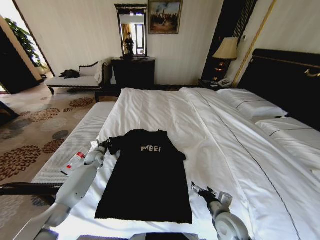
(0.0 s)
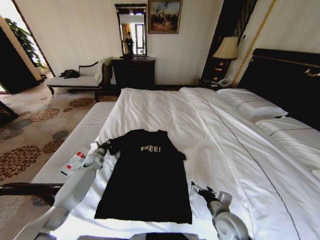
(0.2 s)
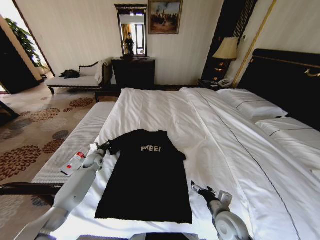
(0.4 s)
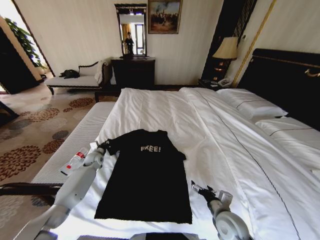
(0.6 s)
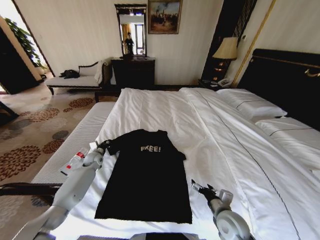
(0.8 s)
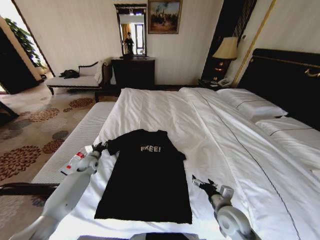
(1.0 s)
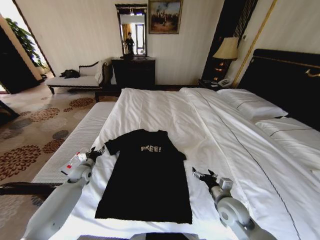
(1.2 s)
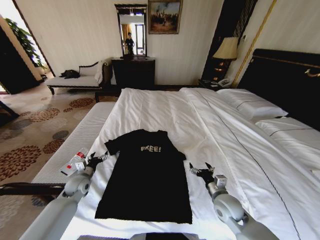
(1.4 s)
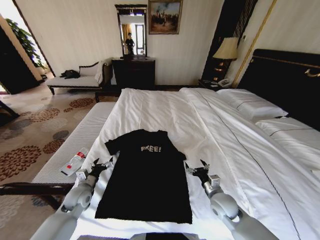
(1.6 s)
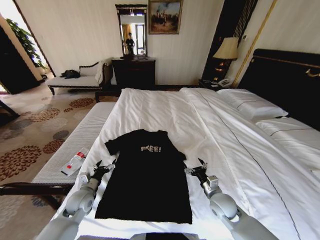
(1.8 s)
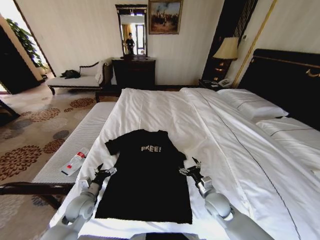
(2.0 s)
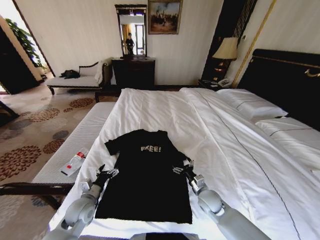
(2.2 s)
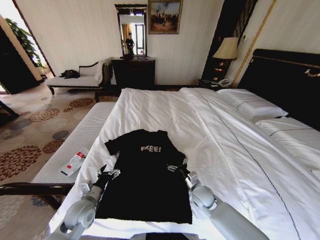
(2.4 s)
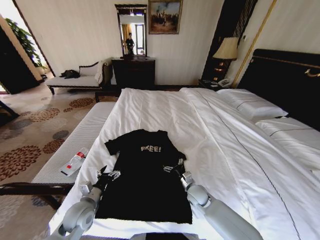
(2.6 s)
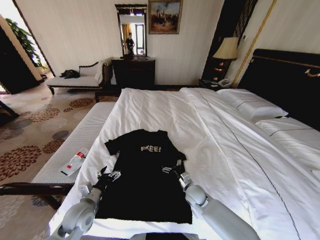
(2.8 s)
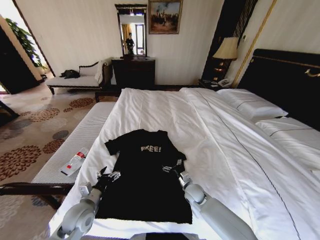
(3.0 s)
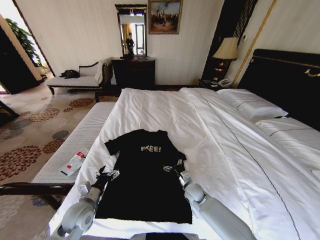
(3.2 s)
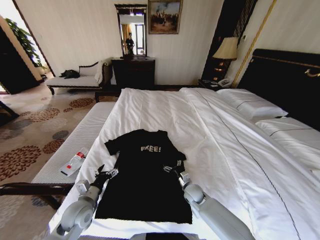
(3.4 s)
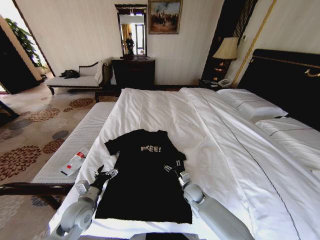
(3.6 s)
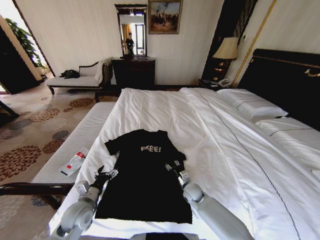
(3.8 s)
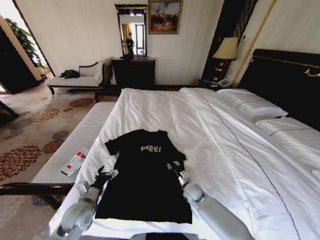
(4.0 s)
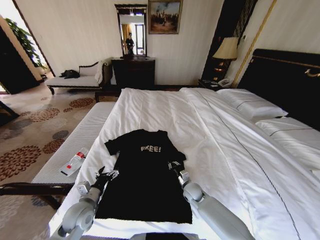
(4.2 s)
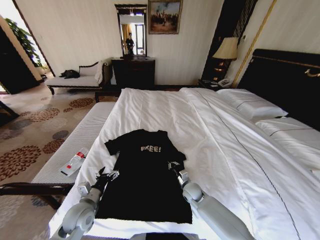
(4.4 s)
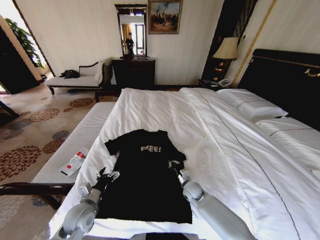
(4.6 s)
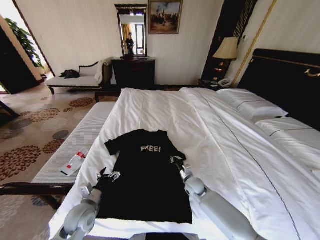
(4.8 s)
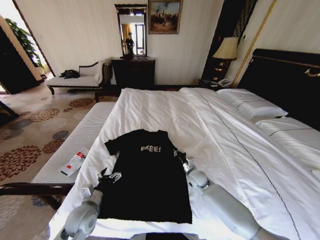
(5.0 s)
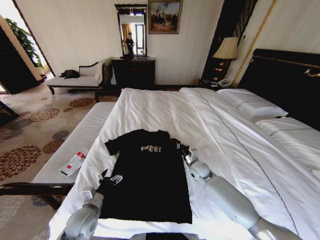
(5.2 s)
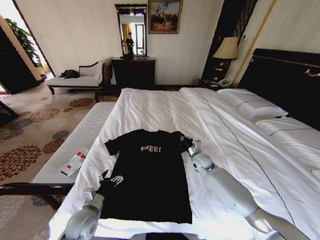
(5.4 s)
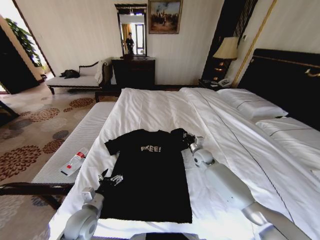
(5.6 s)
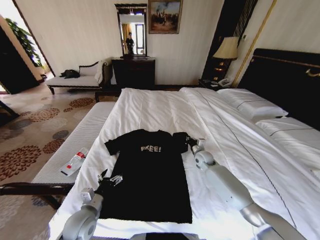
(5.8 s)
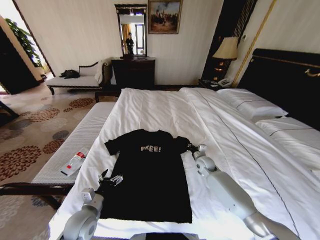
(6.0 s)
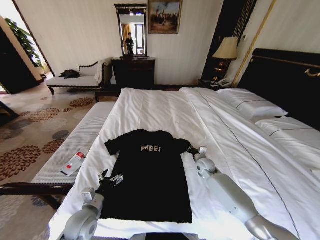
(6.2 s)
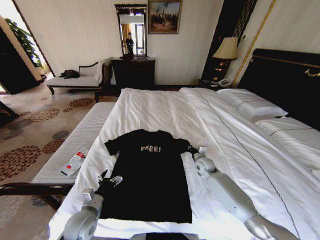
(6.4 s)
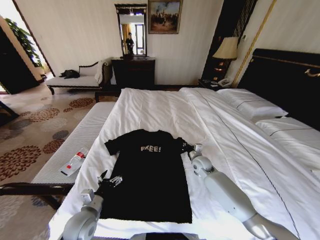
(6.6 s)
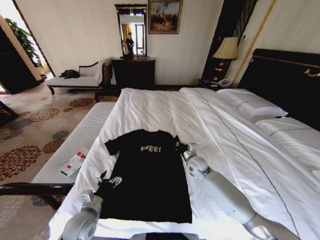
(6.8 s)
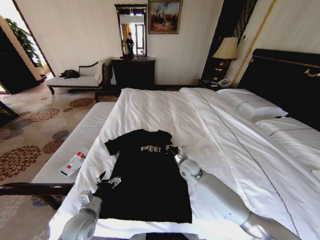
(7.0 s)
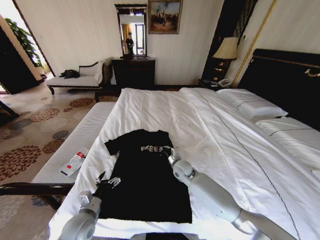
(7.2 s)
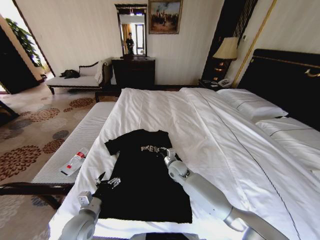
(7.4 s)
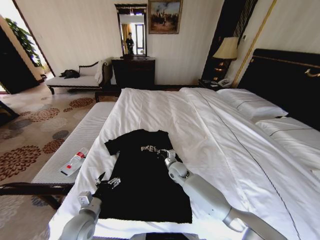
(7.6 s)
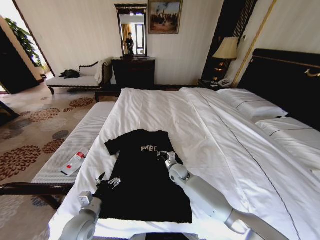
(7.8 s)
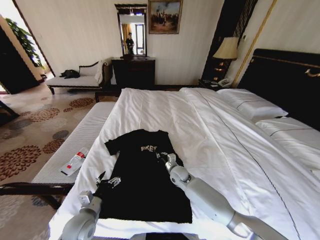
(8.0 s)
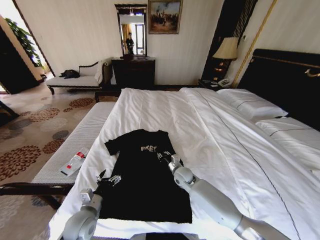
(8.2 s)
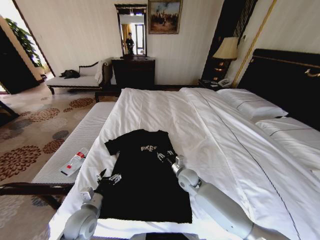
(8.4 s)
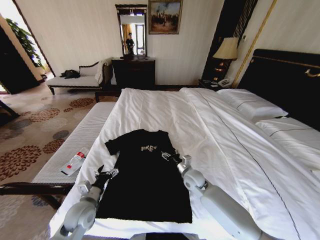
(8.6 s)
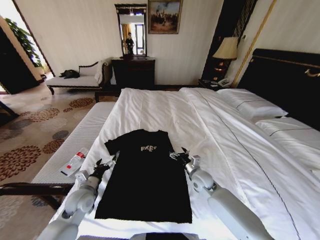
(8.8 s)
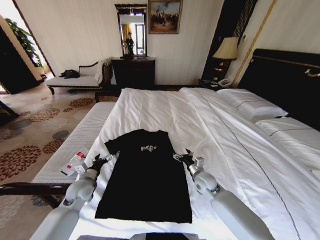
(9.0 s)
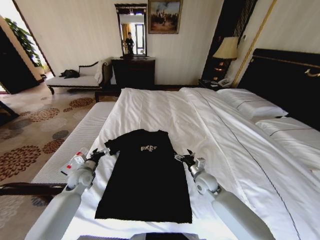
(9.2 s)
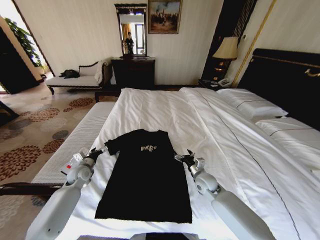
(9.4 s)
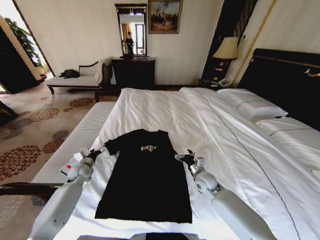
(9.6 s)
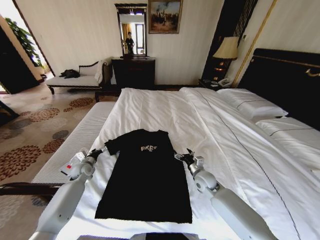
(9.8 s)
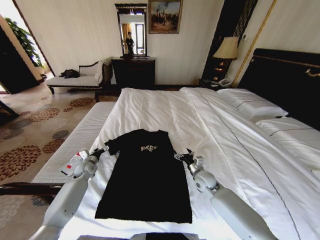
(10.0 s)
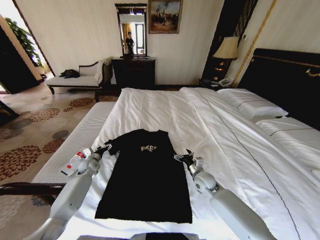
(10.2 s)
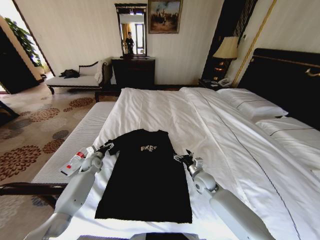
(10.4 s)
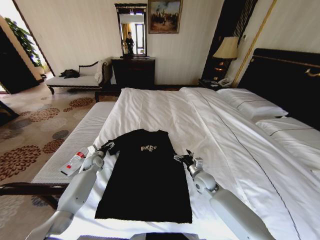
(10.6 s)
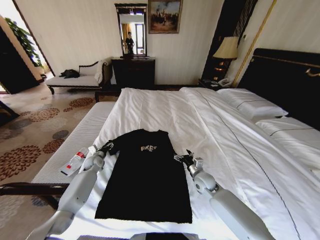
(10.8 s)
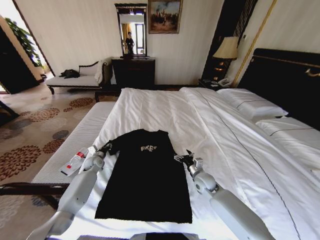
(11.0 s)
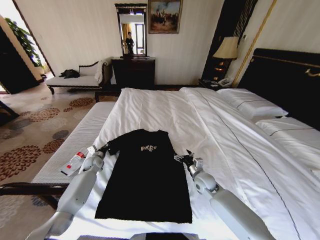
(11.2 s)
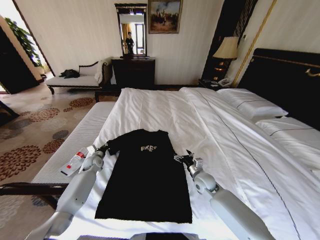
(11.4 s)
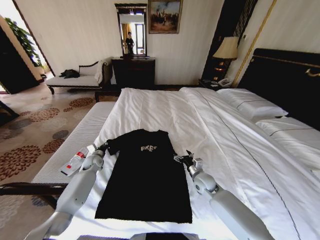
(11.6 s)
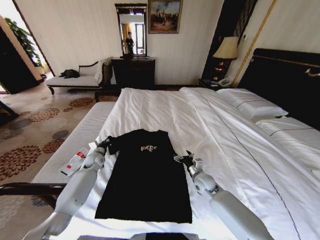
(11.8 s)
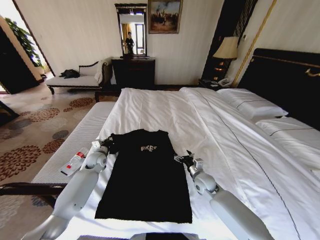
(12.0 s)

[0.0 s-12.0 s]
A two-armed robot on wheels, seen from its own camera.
Task of the whole recording: Fold the clothes on the bed.
0.0 to 1.6 s: The right gripper travels forward by roughly 5 cm. Meanwhile the left gripper goes some 20 cm backward, and opens up.
1.6 to 3.0 s: The right gripper shifts approximately 15 cm downward, to the left and forward, while the left gripper goes approximately 10 cm backward and to the right.
3.0 to 4.4 s: The right gripper closes up.
4.4 to 6.0 s: The right gripper moves forward, upward and to the right, approximately 15 cm.
6.0 to 7.6 s: The right gripper travels to the left by roughly 15 cm.
7.6 to 9.0 s: The left gripper travels forward and to the left by about 15 cm; the right gripper travels to the right and backward by approximately 15 cm, and opens up.
9.0 to 10.4 s: The left gripper is displaced forward by some 15 cm.
10.4 to 12.0 s: The left gripper goes roughly 10 cm to the right and upward, and closes its fingers.

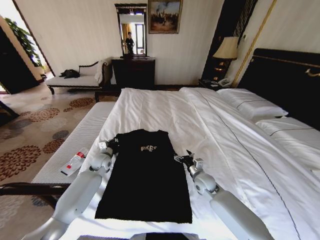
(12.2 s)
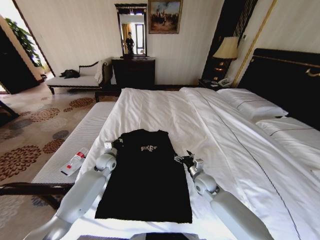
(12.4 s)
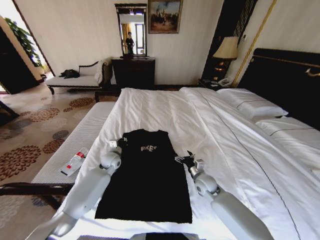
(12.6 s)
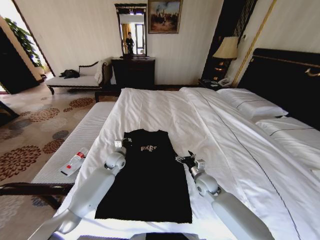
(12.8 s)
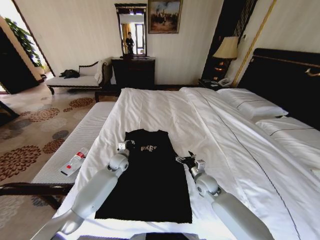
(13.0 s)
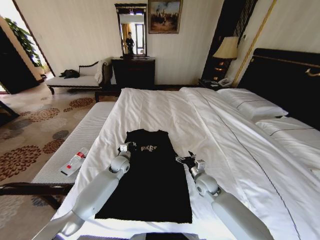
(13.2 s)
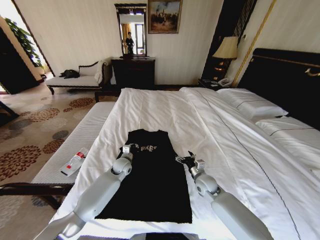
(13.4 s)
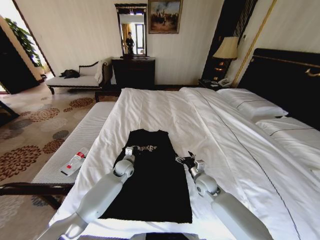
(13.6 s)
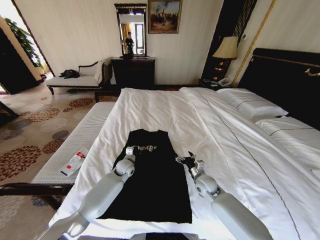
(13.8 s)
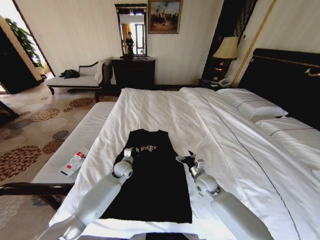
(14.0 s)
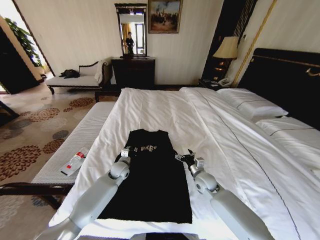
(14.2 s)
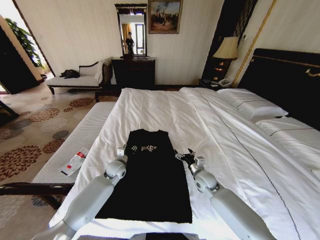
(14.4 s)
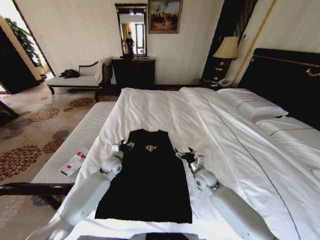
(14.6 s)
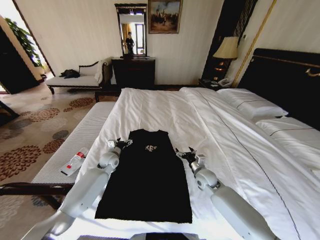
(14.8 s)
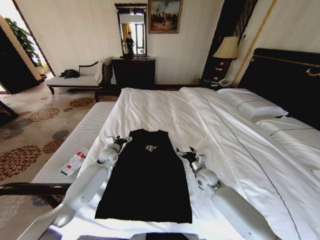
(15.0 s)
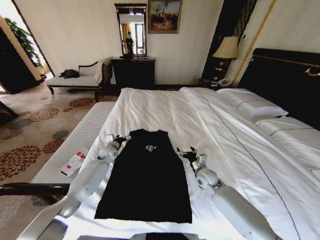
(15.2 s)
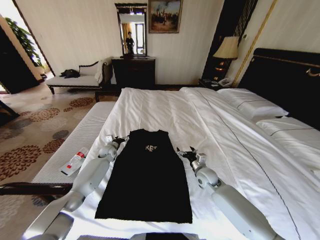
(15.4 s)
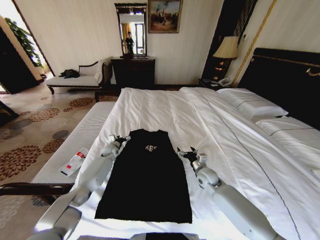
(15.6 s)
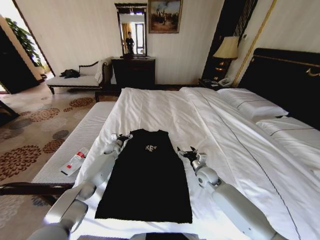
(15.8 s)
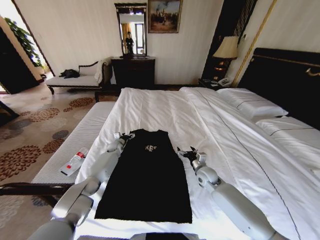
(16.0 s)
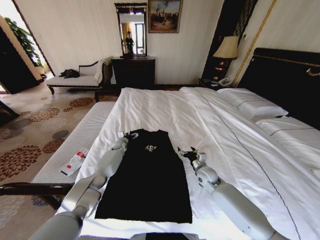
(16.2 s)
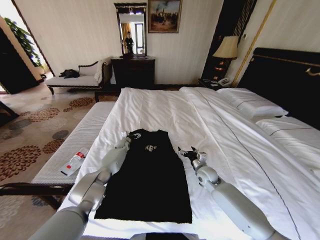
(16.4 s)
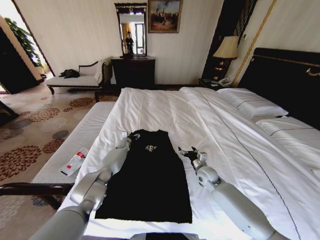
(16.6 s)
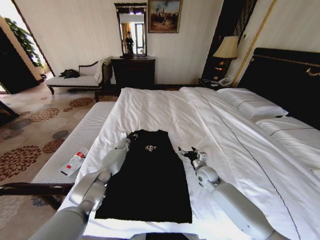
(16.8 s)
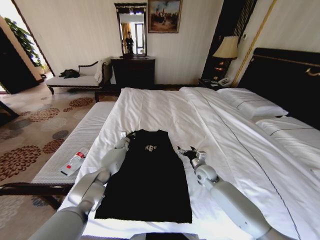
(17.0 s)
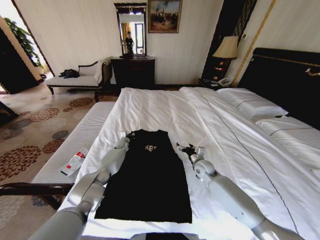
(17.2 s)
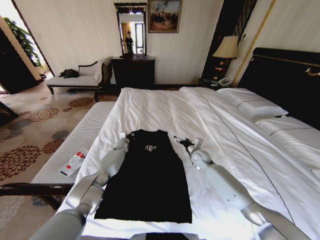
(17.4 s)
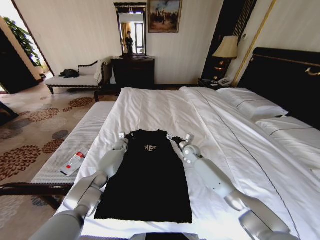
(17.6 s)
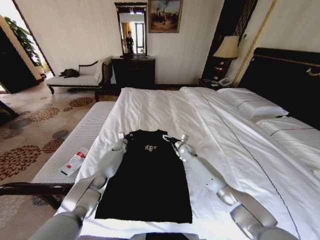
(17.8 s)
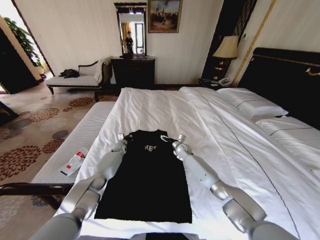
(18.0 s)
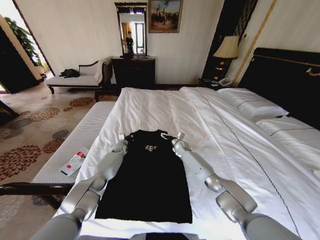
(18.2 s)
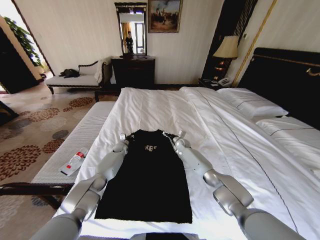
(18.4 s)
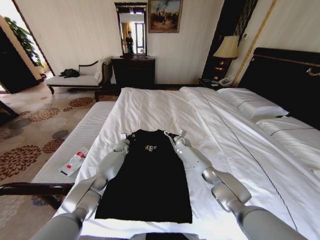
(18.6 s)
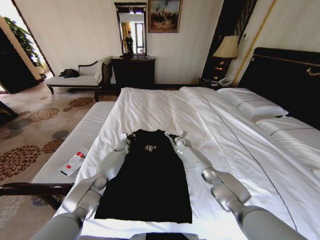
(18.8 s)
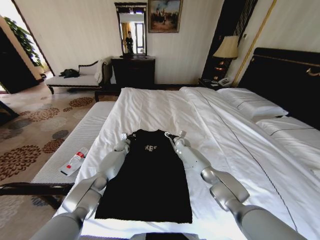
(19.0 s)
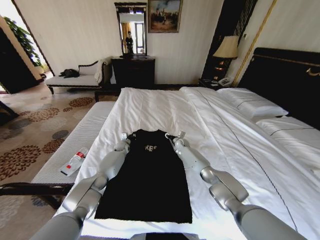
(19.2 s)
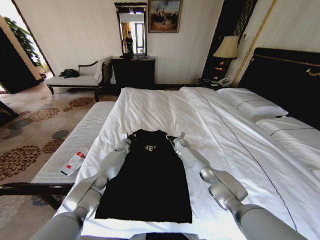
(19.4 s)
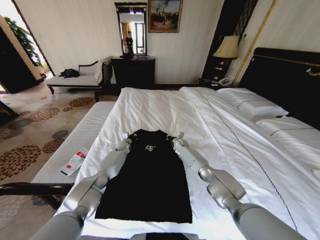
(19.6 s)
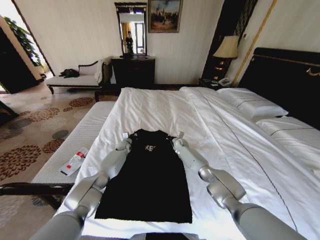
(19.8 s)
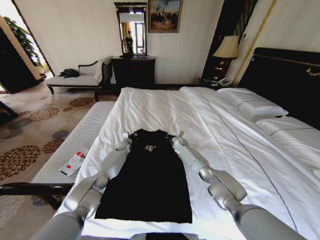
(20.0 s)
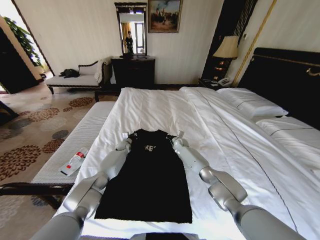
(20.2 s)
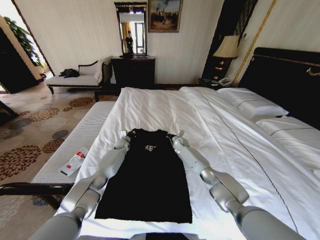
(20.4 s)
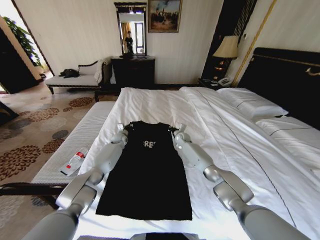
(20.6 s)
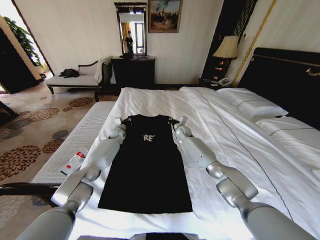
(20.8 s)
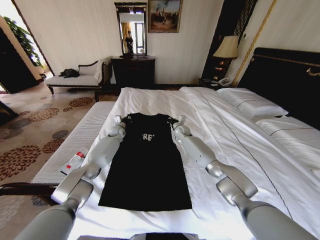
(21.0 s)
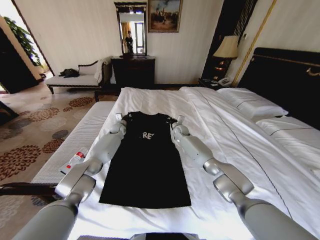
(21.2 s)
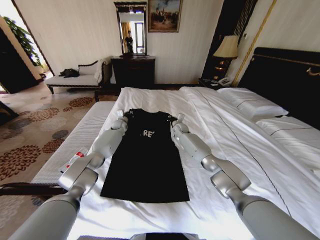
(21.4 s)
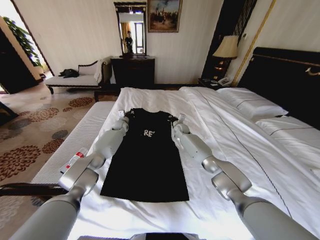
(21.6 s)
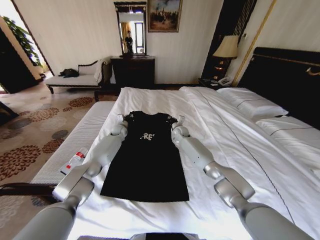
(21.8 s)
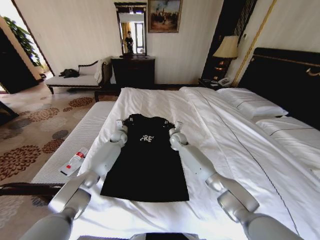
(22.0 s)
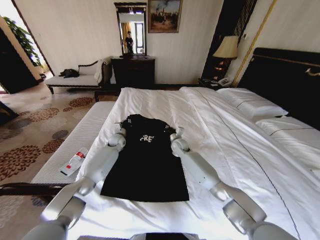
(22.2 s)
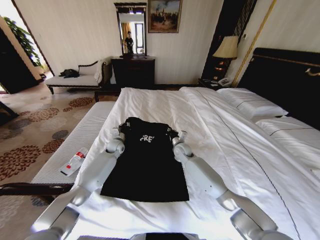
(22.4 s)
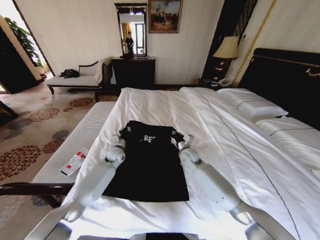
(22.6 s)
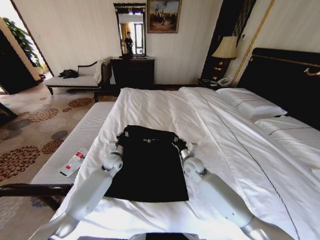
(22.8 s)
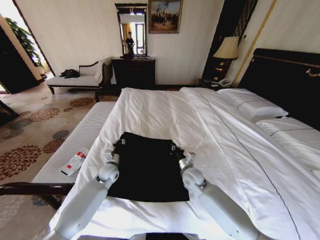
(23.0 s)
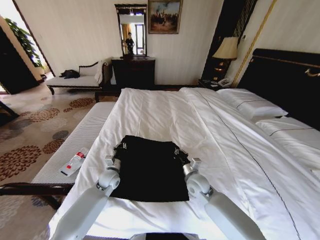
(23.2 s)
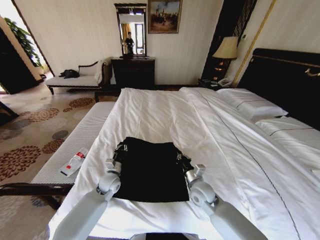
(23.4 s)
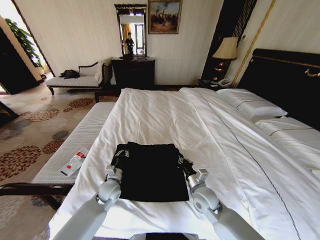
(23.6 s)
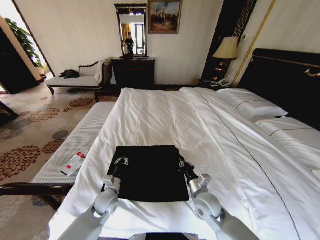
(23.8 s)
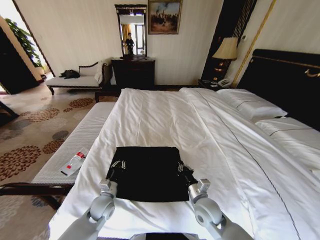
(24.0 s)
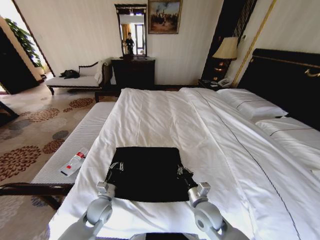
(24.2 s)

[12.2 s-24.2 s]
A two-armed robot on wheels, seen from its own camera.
Task of the whole recording: Fold the clothes on the bed.
12.2 to 13.8 s: The left gripper travels to the right by some 10 cm.
13.8 to 15.2 s: The left gripper travels to the left and forward by roughly 15 cm, and opens up.
15.2 to 16.6 s: The left gripper travels forward, downward and to the right by about 15 cm.
16.6 to 18.2 s: The right gripper shifts roughly 20 cm forward; the left gripper closes.
18.2 to 19.8 s: The right gripper closes up.
19.8 to 21.2 s: The two grippers go some 10 cm upward.
21.2 to 22.6 s: Both grippers move backward, approximately 15 cm.
22.6 to 24.2 s: Both grippers travel together backward, some 25 cm.
